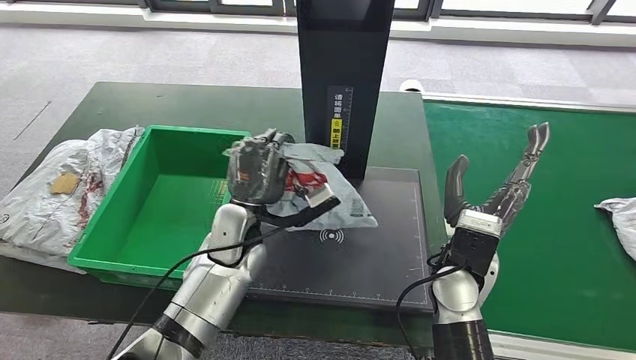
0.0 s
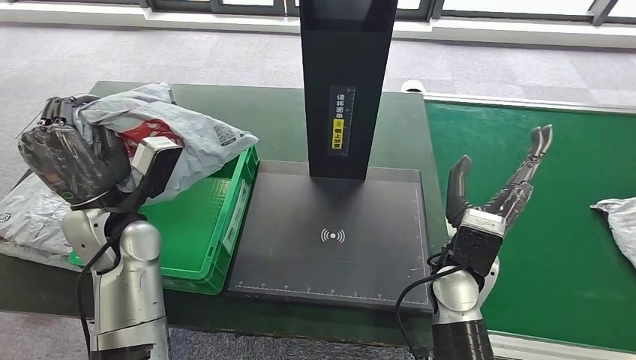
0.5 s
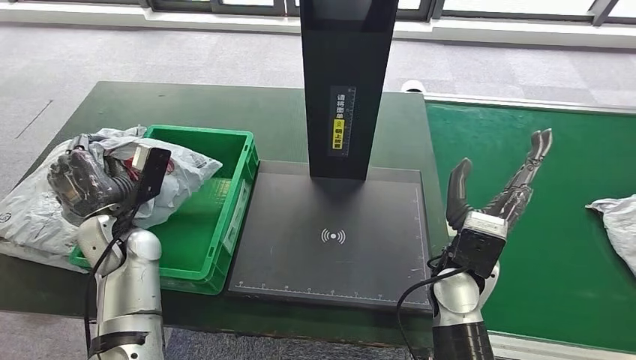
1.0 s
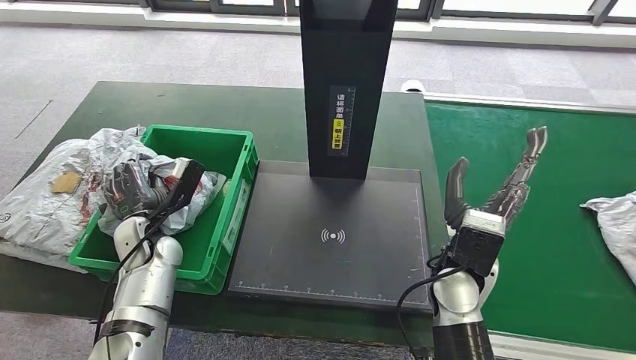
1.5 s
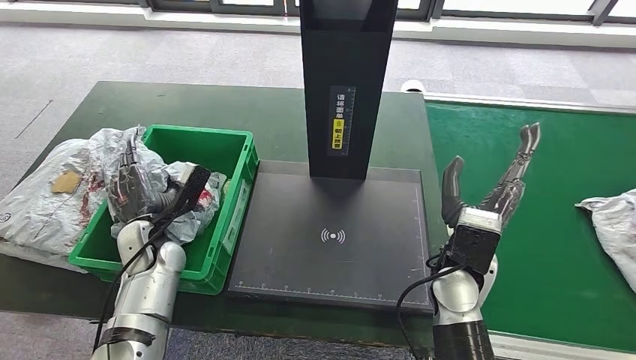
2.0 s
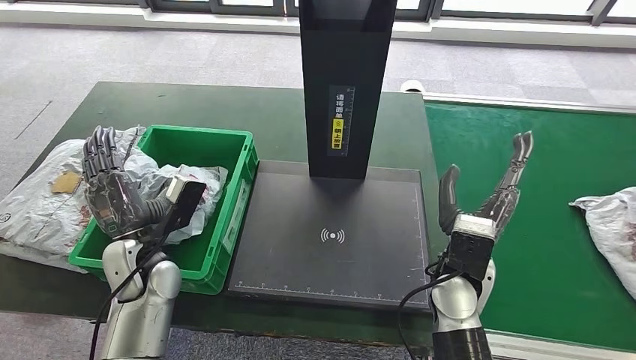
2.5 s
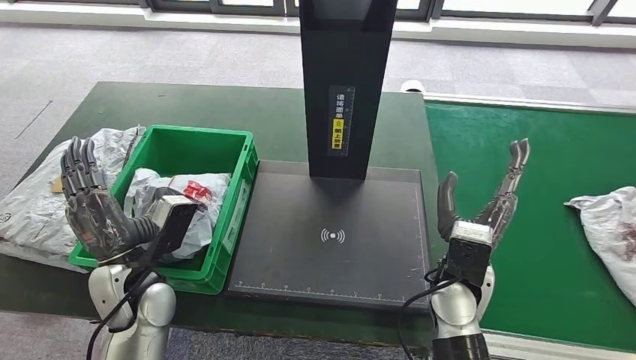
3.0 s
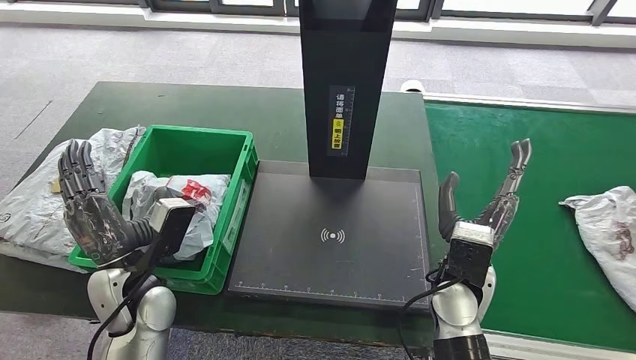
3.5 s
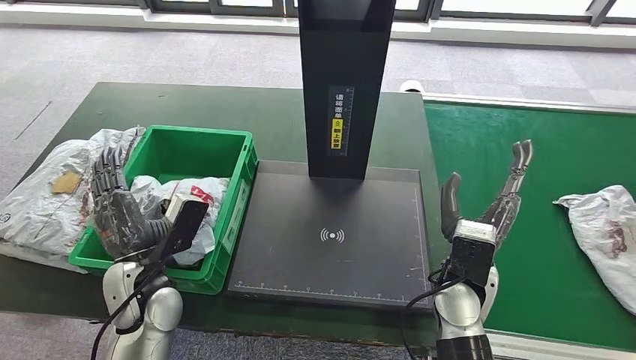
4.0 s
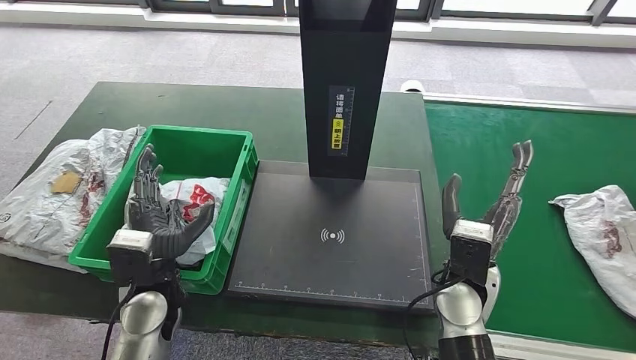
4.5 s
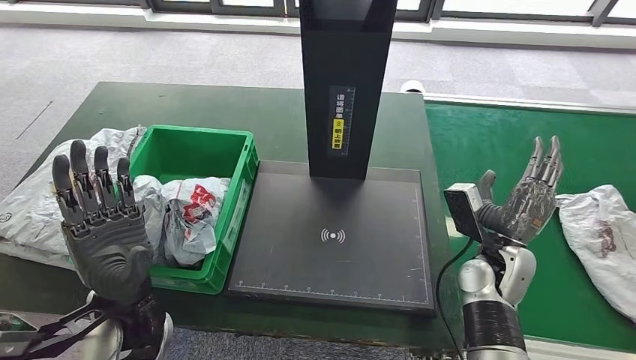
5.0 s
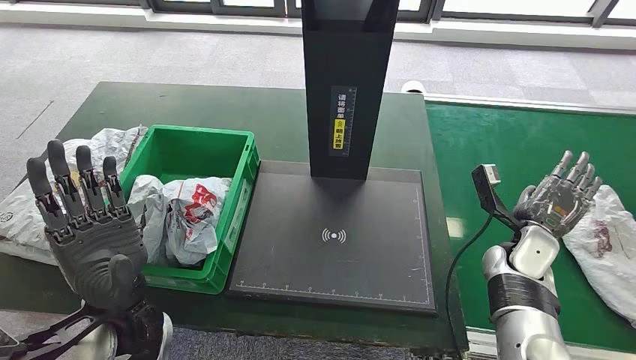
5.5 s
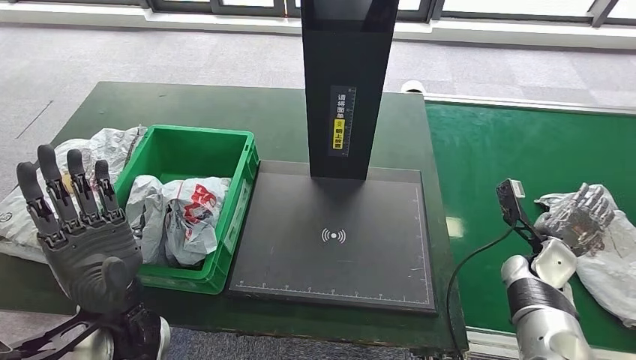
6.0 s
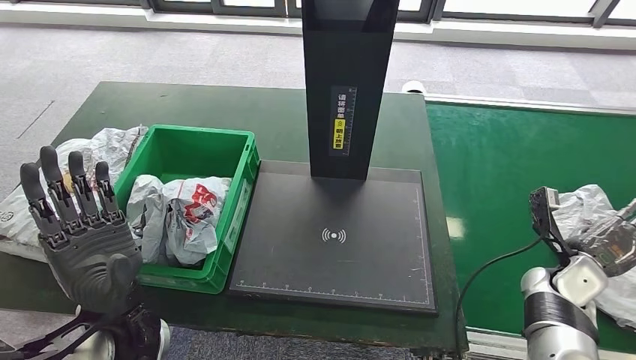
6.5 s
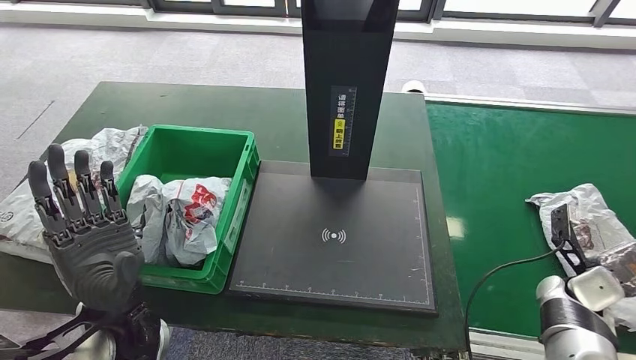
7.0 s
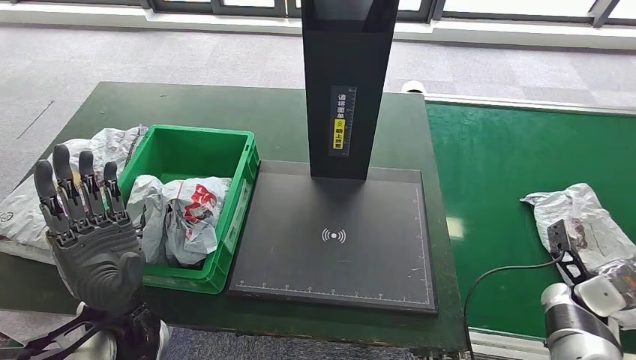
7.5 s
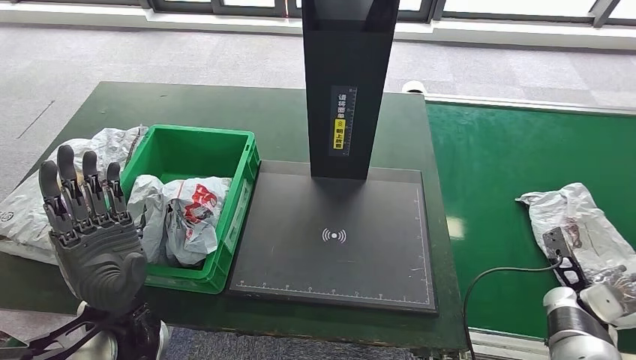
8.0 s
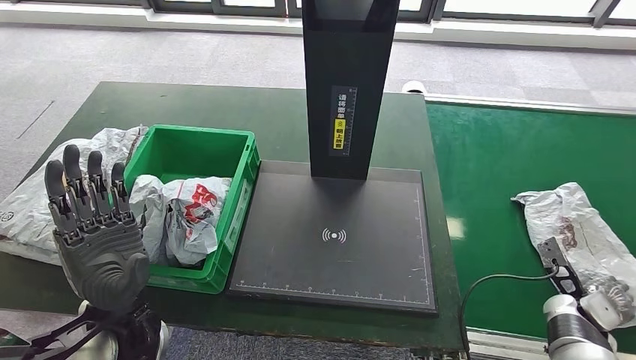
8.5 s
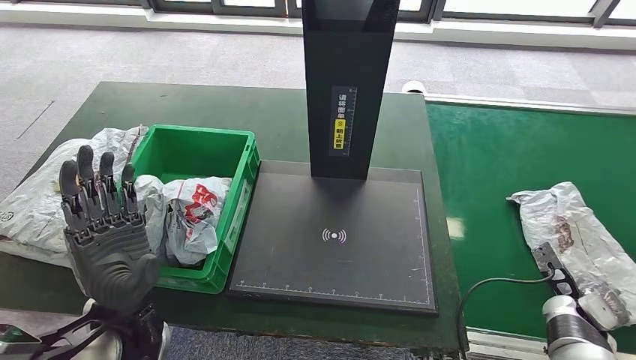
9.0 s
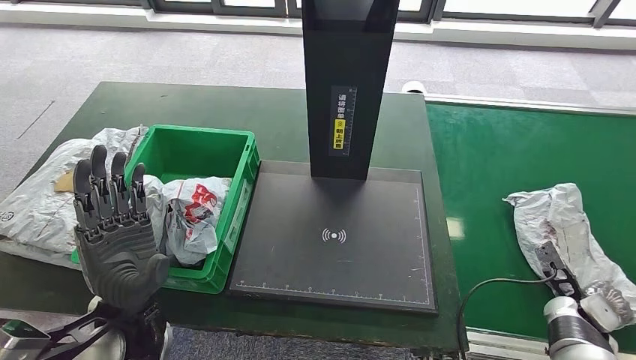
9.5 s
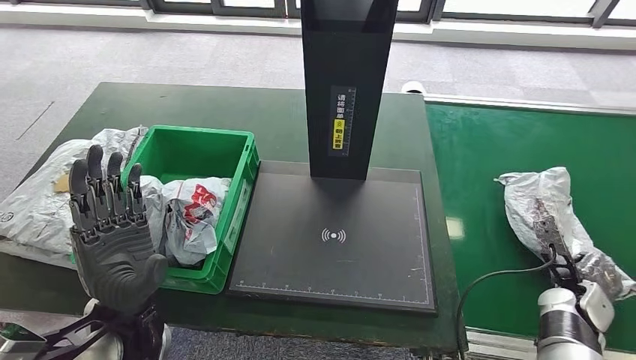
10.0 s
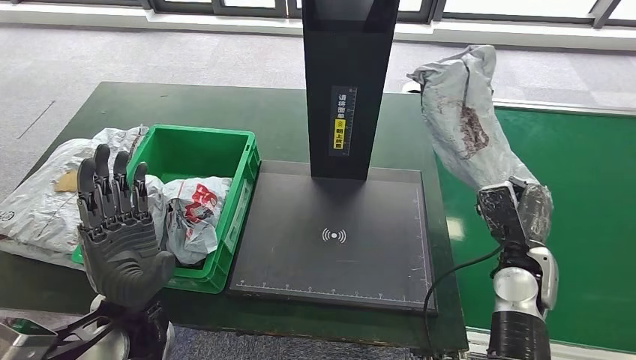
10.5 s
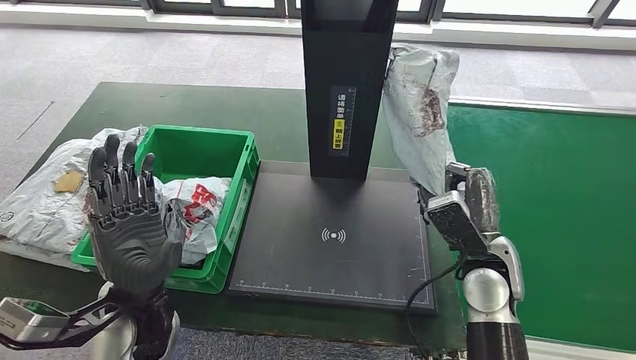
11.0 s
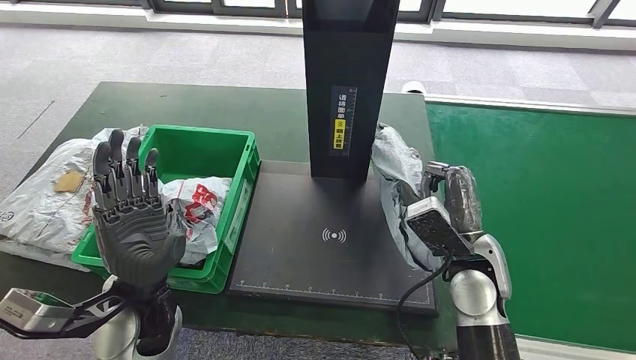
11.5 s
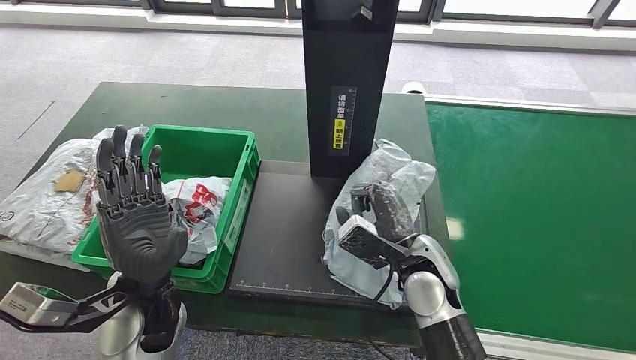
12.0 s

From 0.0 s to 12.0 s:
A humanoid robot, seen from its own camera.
Step, from 1.0 s to 4.5 s: Put the parcel inside the courier box.
Step, from 6.0 s to 10.0 s: Pick up the parcel from the conveyor belt.
From 2.0 s to 4.0 s: The left hand heads backward, covering roughly 10 cm.
From 6.0 s to 8.0 s: The right hand moves to the right and backward, roughly 10 cm.

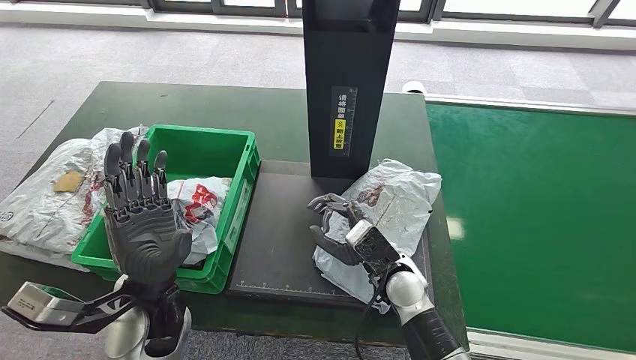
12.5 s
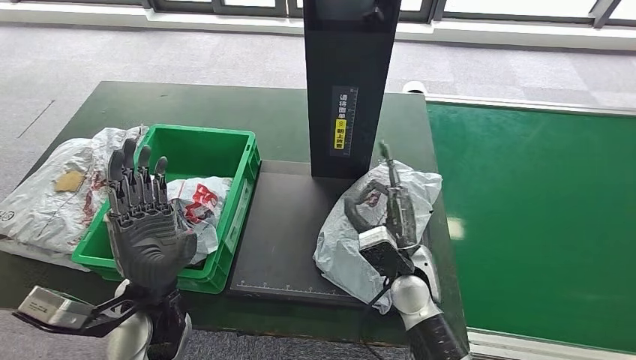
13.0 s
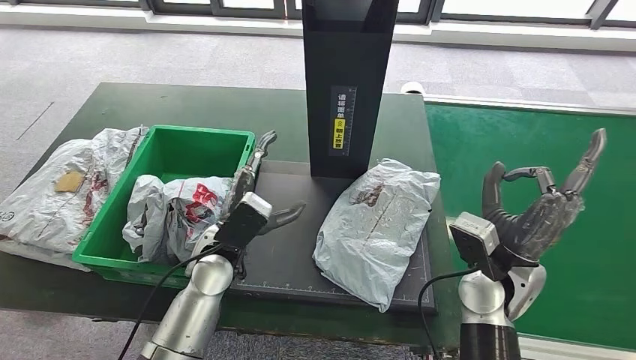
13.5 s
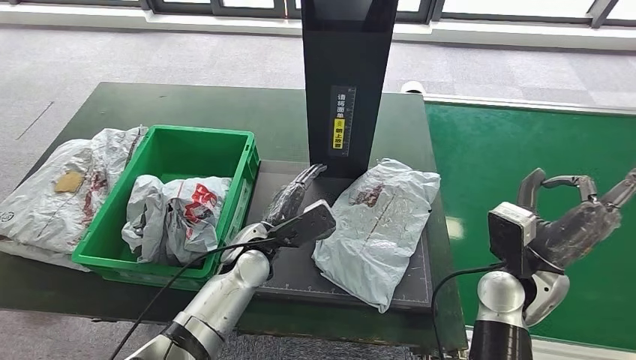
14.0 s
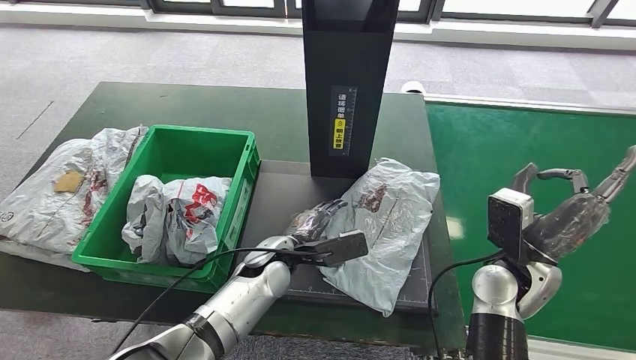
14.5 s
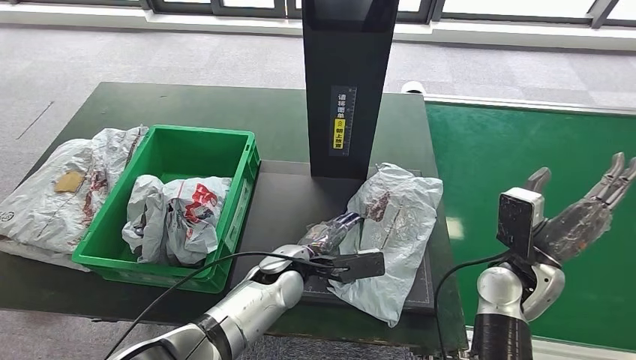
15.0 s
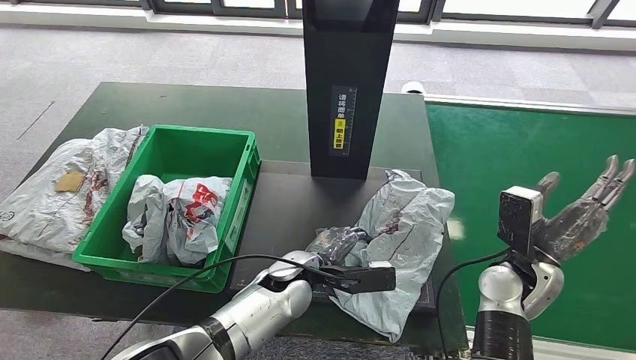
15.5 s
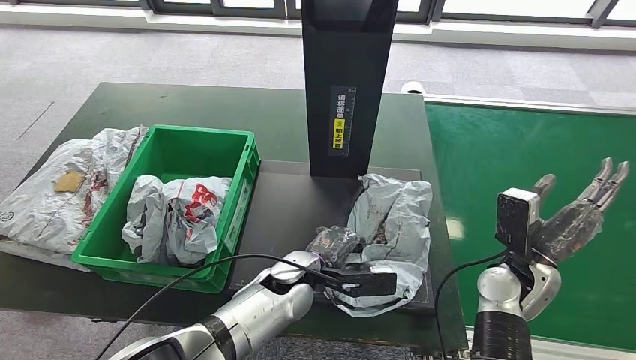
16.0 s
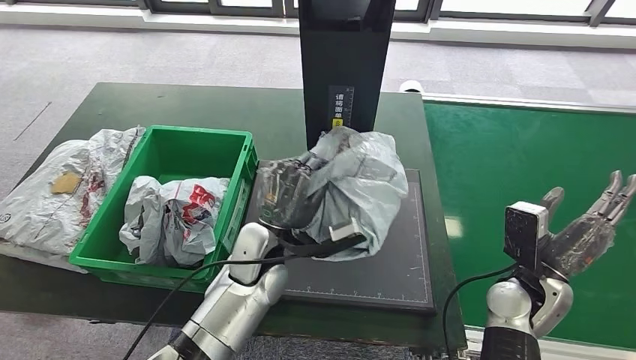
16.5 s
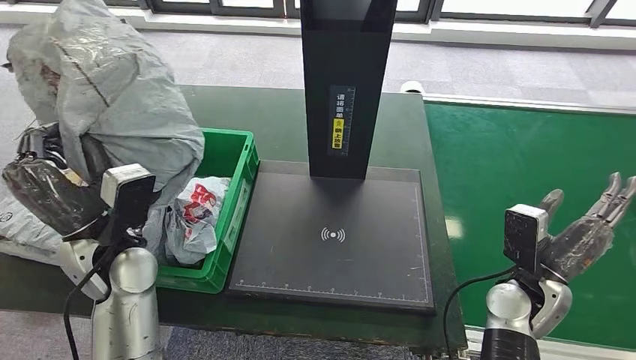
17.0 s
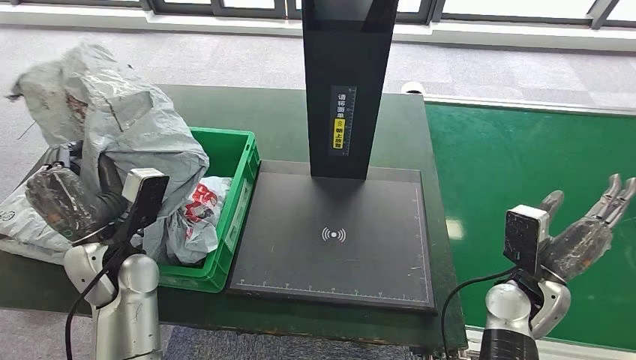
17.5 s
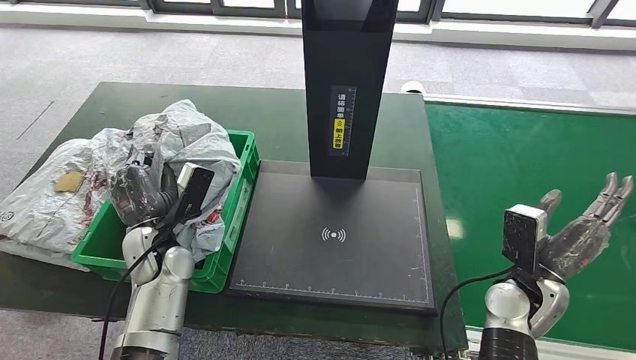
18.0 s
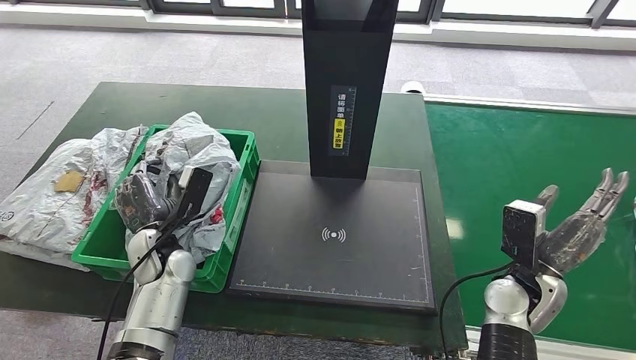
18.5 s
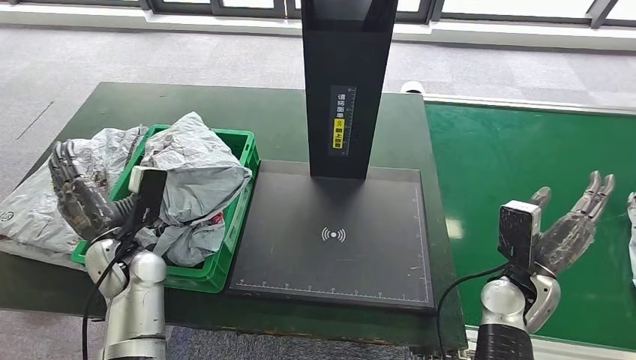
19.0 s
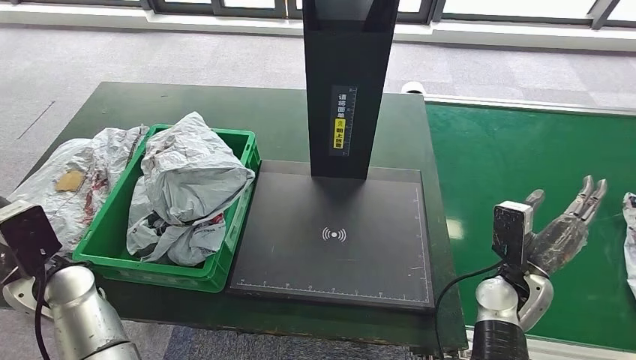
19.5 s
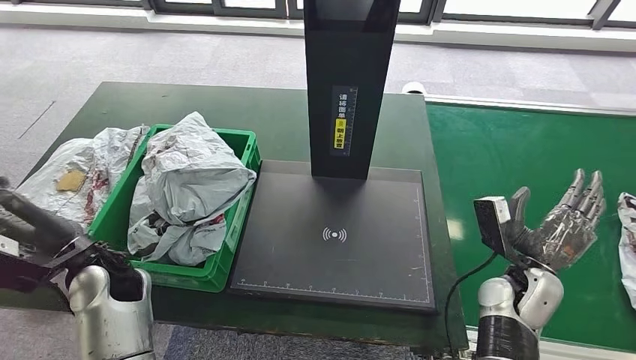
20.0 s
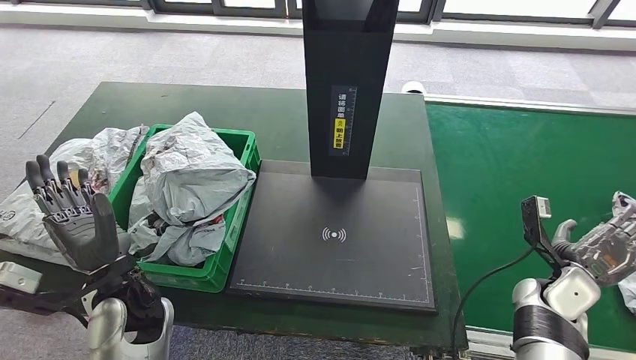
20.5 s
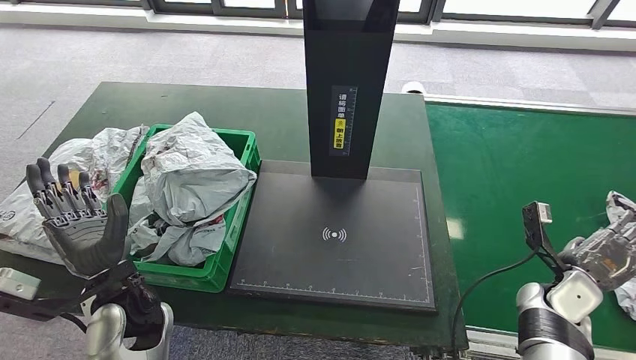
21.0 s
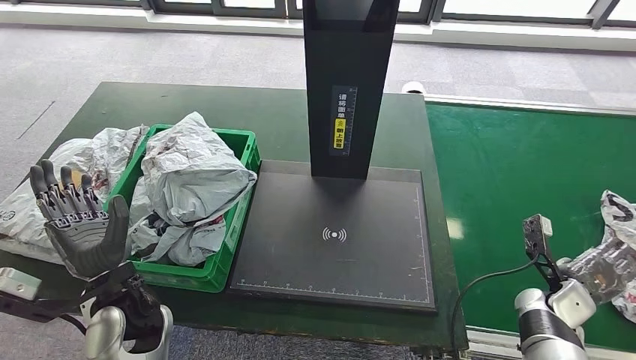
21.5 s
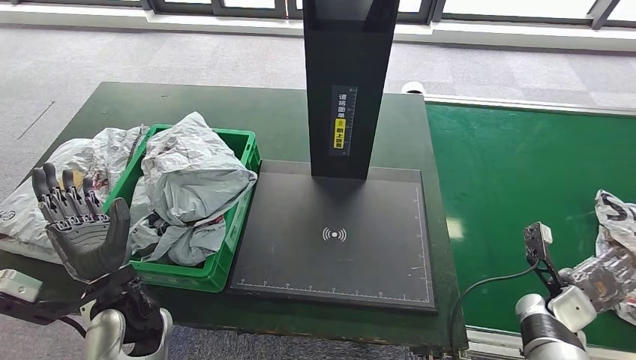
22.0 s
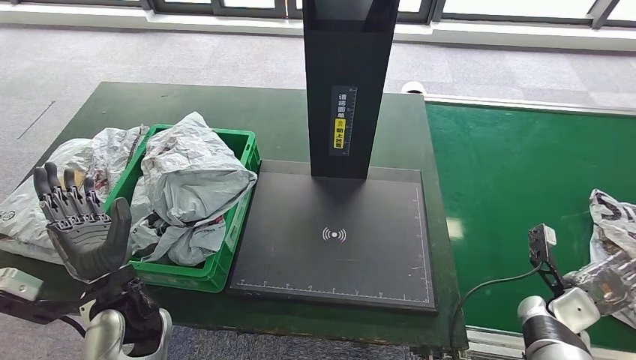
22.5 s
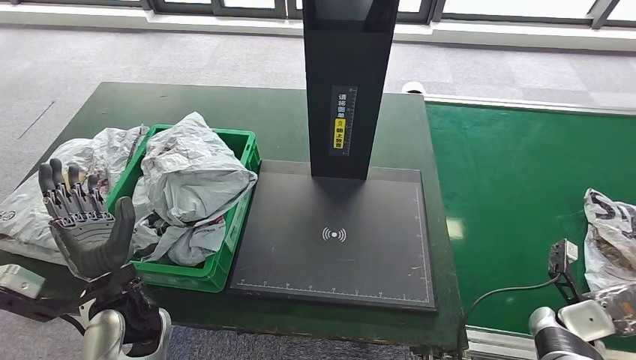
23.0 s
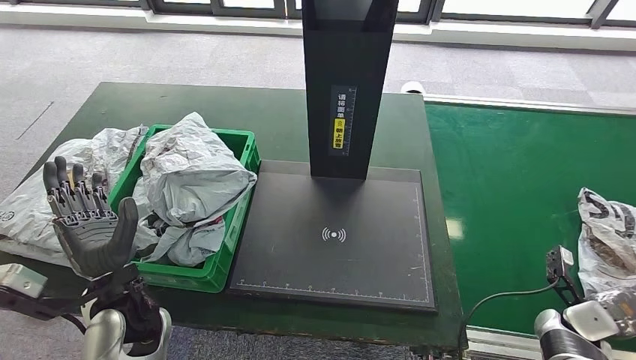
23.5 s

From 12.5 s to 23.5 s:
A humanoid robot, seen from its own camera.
Step, from 14.0 s to 16.5 s: Pick up the parcel from the inbound machine.
Step, from 17.0 s to 19.0 s: Place the parcel into the delivery box.
From 12.5 s to 14.5 s: The left hand heads to the right, downward and forward, covering about 20 cm; the right hand travels to the right and upward by roughly 15 cm.
From 14.5 s to 16.0 s: There are only small adjustments of the hands.
From 20.0 s to 21.5 s: The left hand travels to the right by approximately 5 cm, while the right hand goes roughly 15 cm to the right and downward.
From 21.5 s to 23.5 s: The right hand moves approximately 5 cm.
